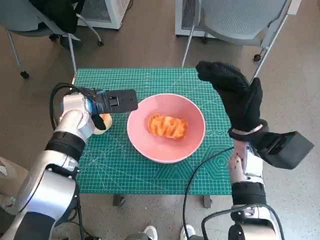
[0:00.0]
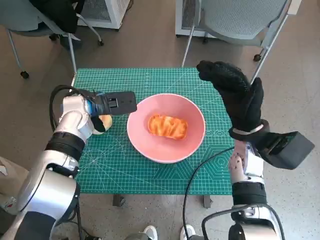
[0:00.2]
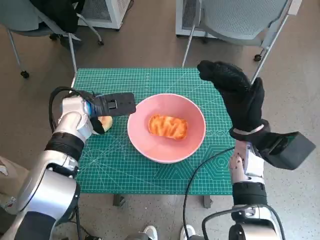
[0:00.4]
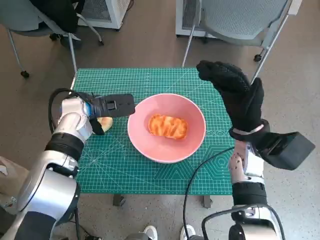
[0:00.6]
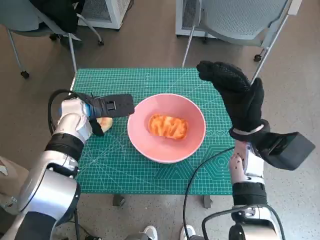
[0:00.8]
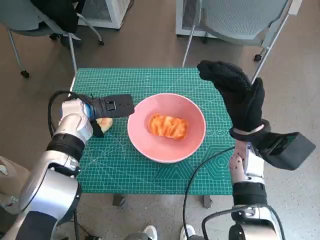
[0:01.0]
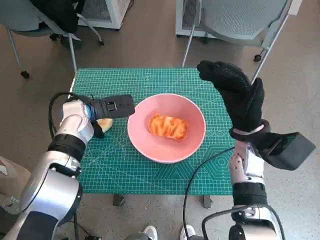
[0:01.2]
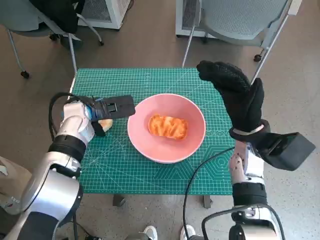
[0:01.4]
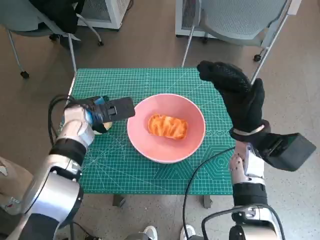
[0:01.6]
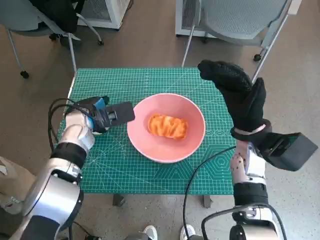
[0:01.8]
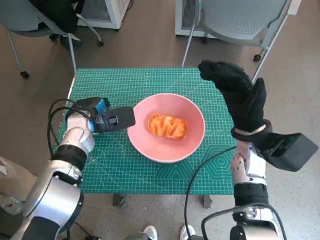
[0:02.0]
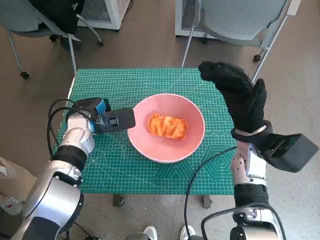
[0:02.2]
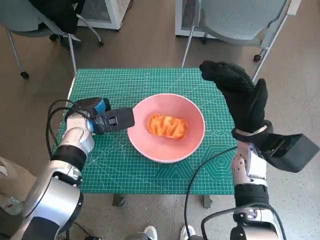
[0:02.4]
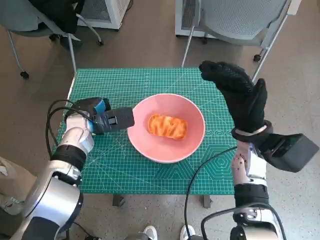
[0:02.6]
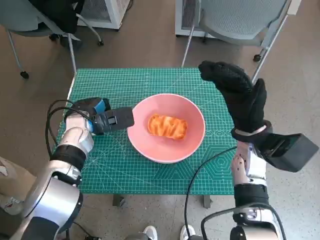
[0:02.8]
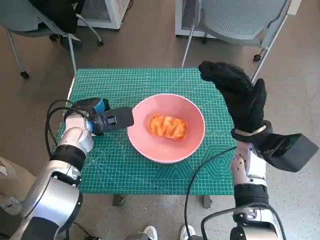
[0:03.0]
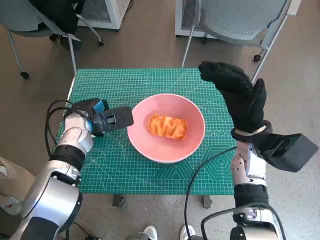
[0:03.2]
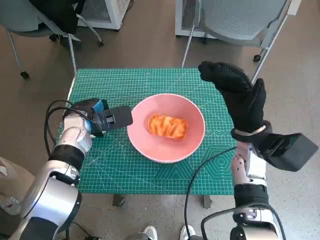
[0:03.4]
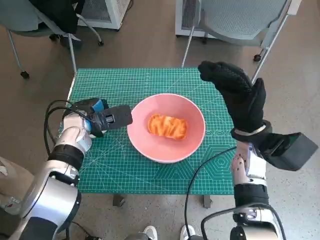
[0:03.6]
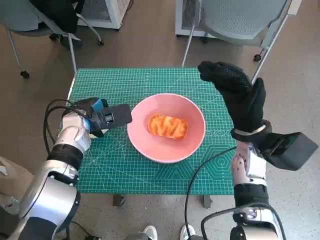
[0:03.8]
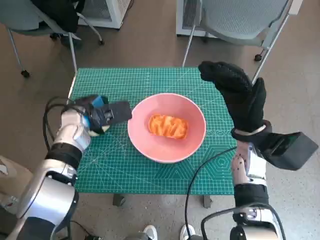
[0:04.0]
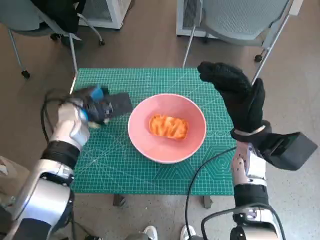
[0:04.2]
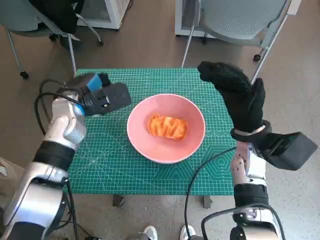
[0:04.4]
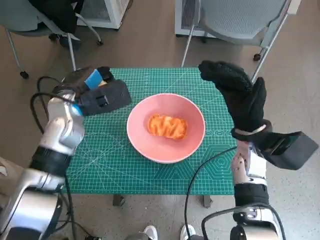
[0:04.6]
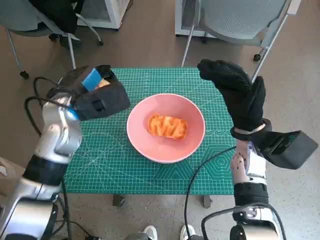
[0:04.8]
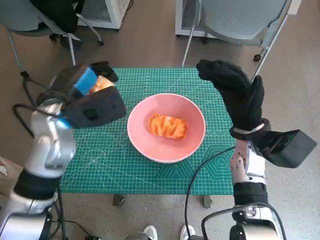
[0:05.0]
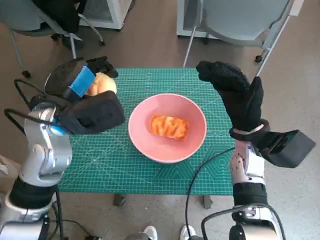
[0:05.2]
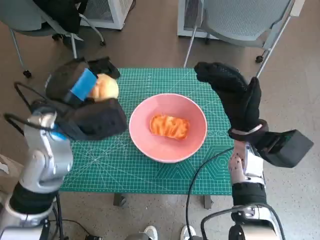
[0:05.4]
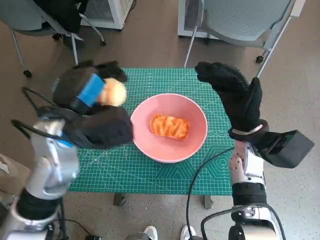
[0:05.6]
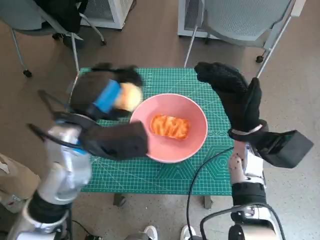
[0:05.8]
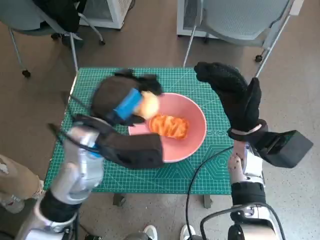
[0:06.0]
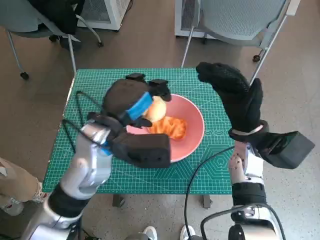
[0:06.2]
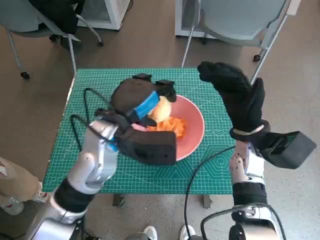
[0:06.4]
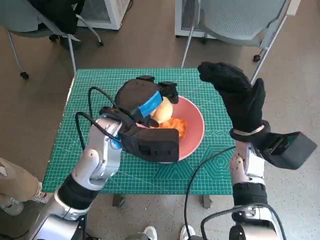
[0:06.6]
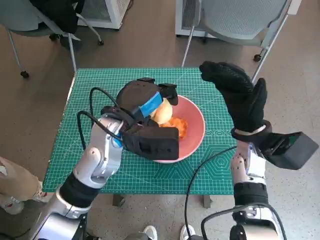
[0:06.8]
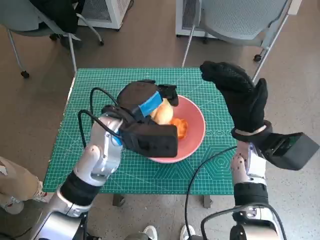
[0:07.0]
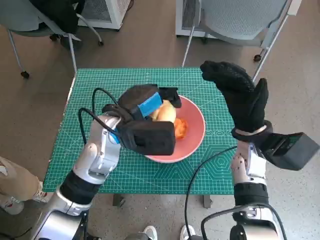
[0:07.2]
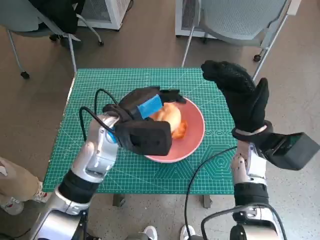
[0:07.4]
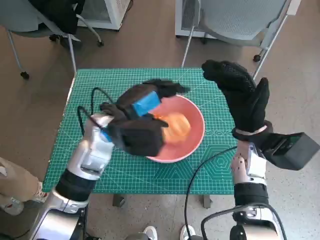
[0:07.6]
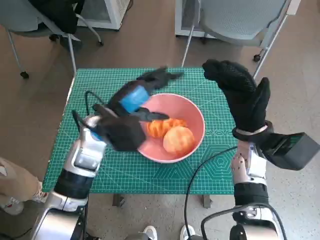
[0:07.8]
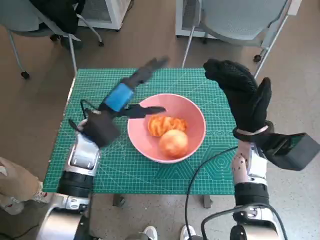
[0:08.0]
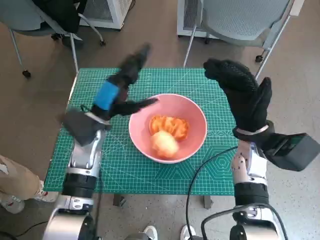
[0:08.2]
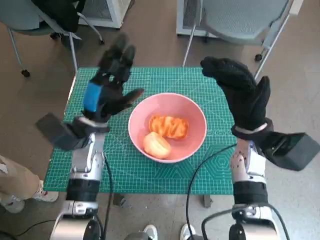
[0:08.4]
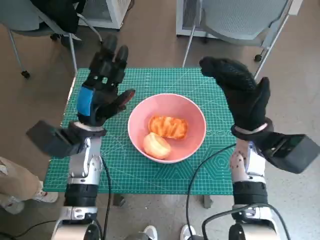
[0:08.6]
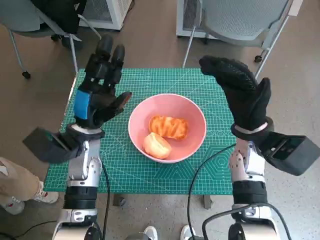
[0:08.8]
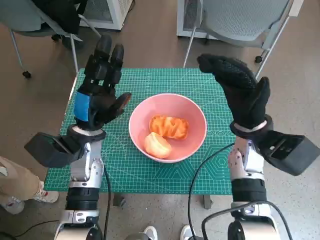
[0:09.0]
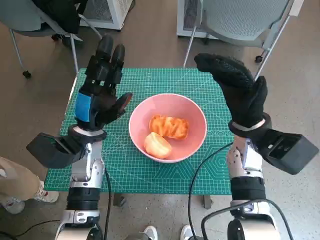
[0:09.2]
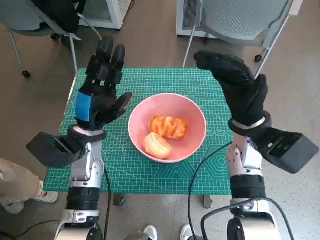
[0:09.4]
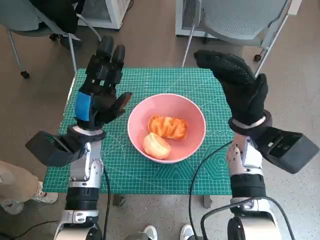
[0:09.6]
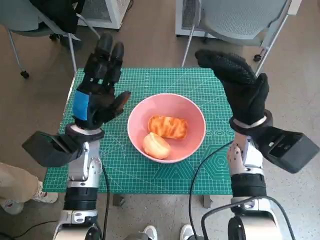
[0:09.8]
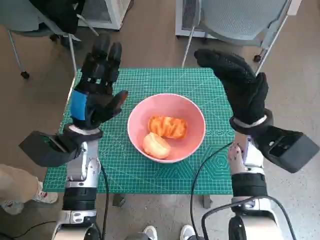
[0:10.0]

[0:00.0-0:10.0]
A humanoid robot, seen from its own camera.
Step, 0:00.0 to 0:02.2: Grasp the round bread with left hand.
Step, 0:02.4 to 0:07.6: Place the round bread in pink bowl with left hand.
0:00.0 to 0:04.2: The hands make only small movements.
0:04.2 to 0:05.8: The left hand moves backward, upward and to the right, some 15 cm.
0:05.8 to 0:07.2: The left hand changes place by roughly 5 cm.
0:07.2 to 0:08.6: The left hand is displaced to the left by some 5 cm.
0:08.6 to 0:10.0: The hands stay close to where they were, moving slightly.
